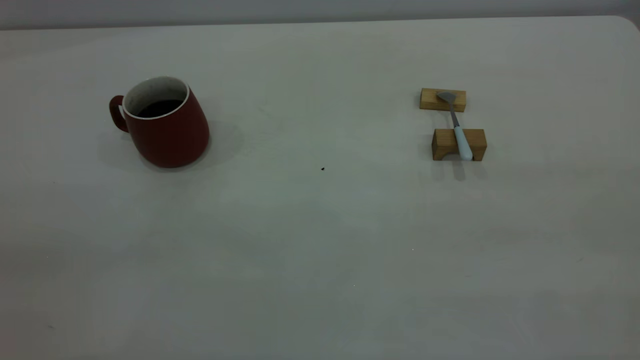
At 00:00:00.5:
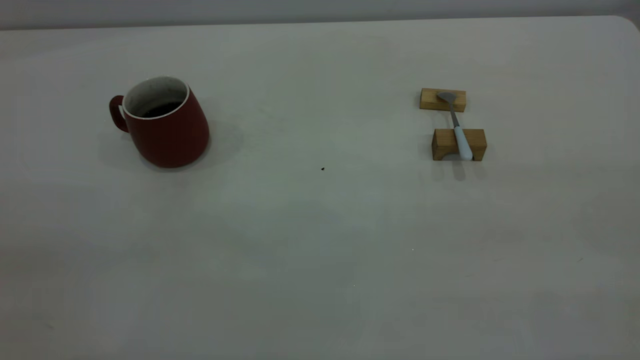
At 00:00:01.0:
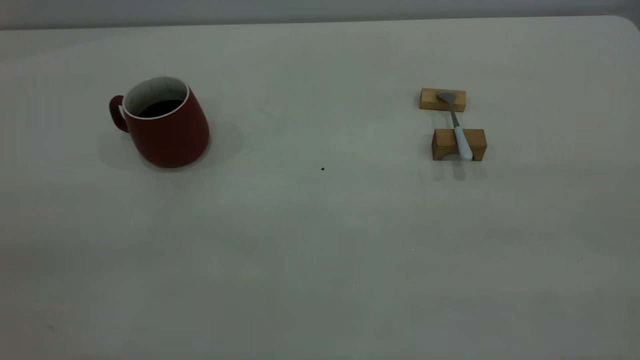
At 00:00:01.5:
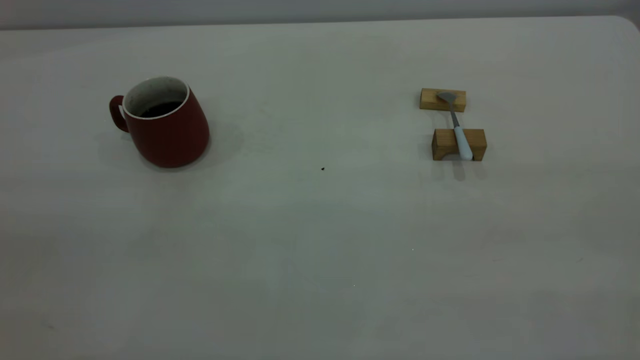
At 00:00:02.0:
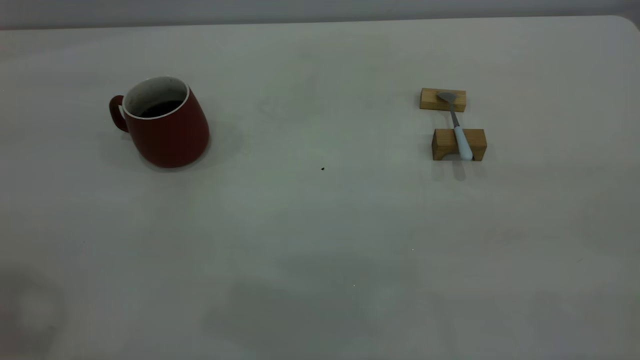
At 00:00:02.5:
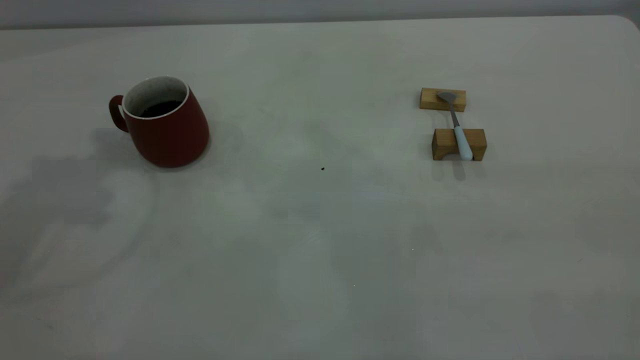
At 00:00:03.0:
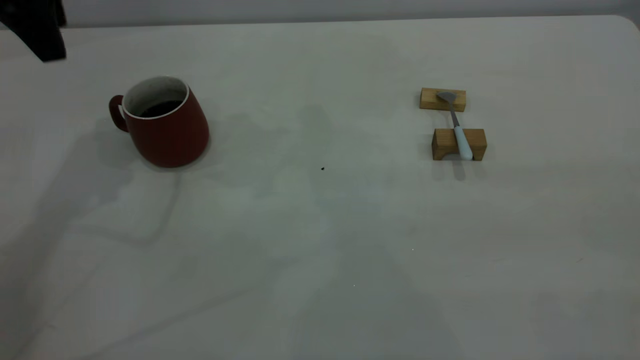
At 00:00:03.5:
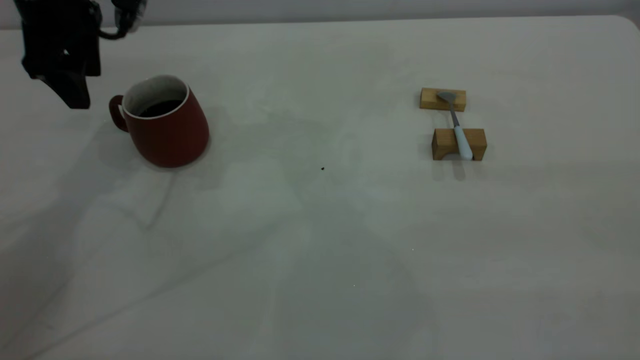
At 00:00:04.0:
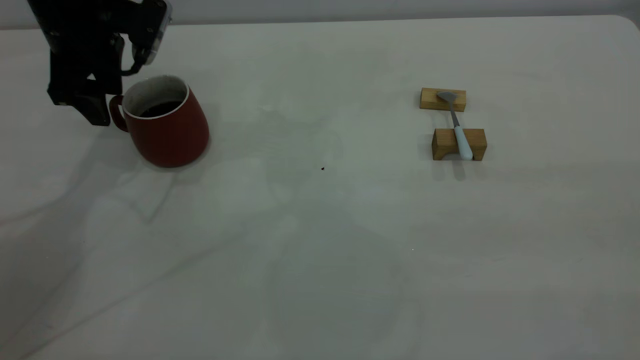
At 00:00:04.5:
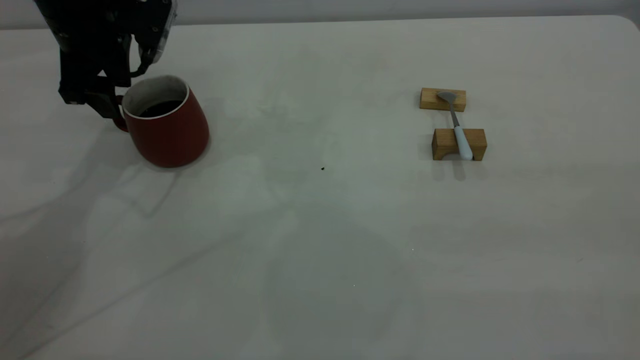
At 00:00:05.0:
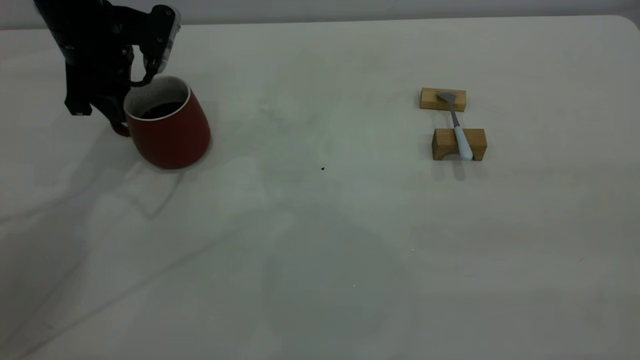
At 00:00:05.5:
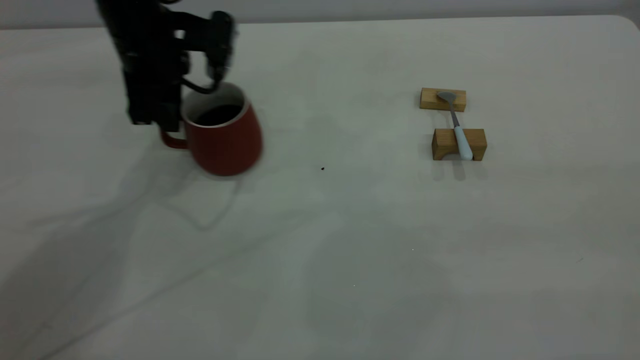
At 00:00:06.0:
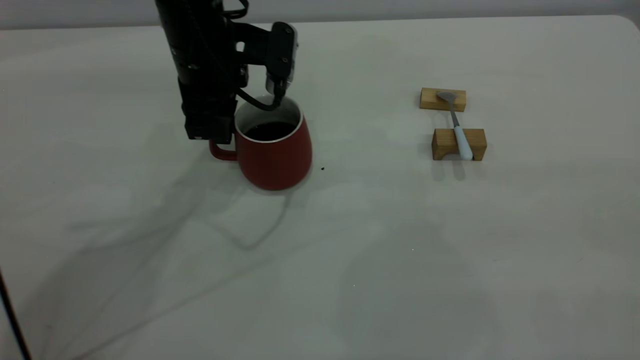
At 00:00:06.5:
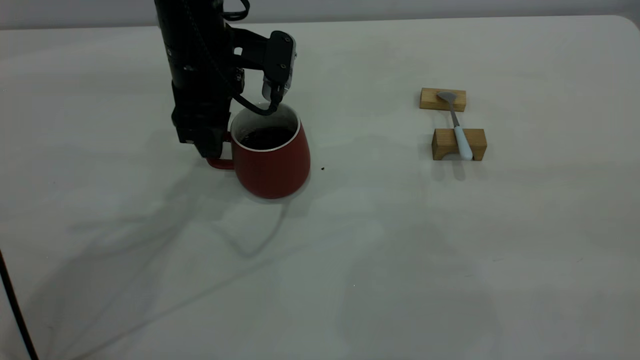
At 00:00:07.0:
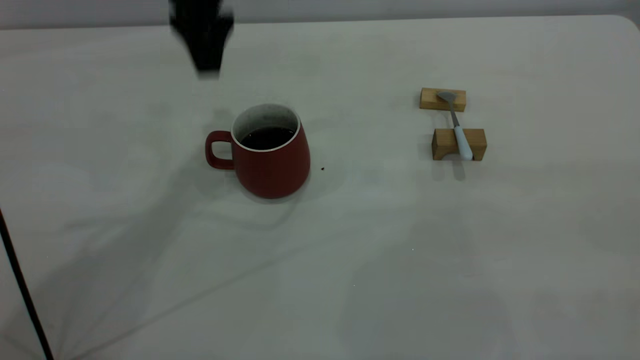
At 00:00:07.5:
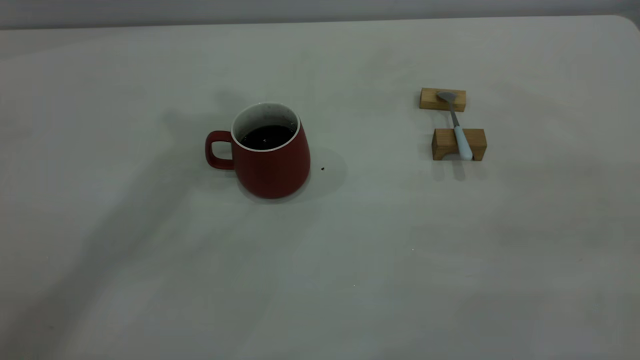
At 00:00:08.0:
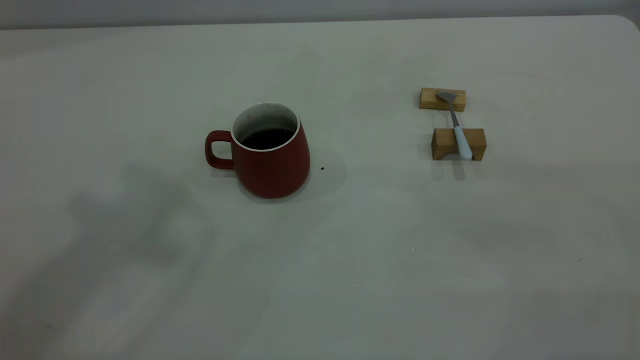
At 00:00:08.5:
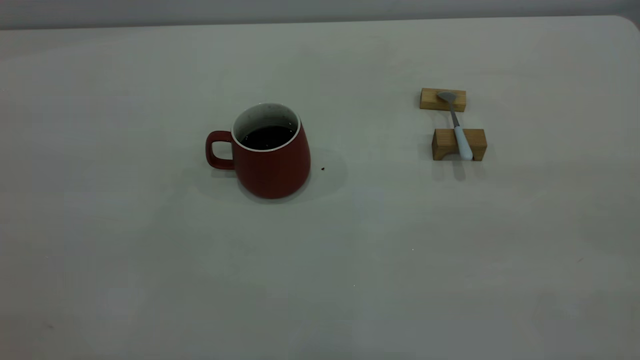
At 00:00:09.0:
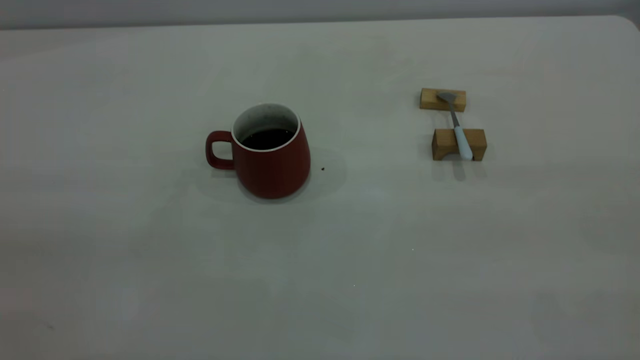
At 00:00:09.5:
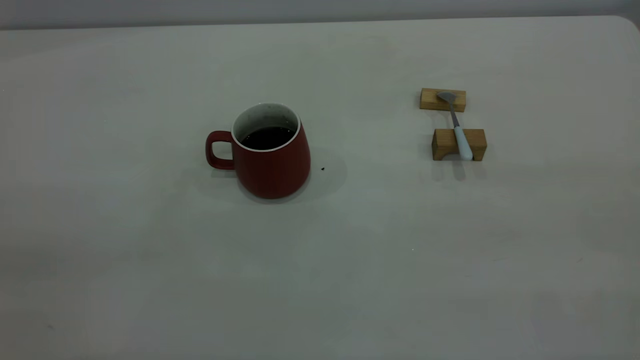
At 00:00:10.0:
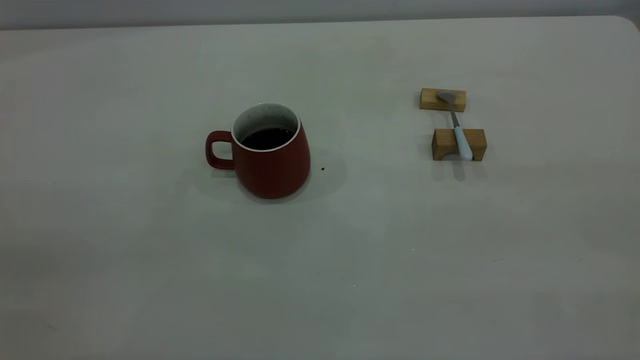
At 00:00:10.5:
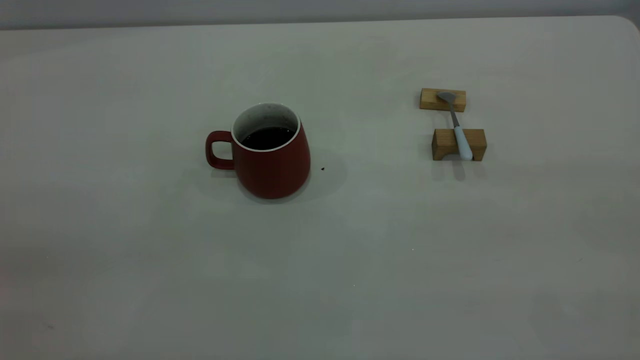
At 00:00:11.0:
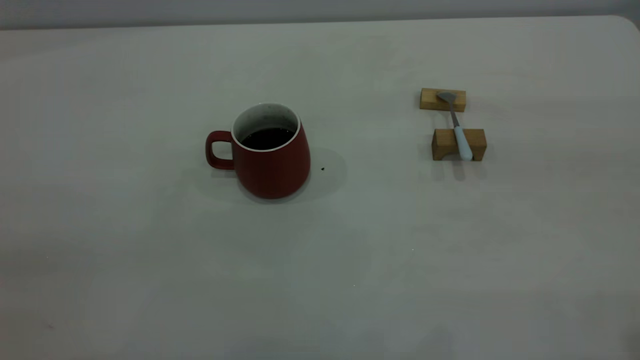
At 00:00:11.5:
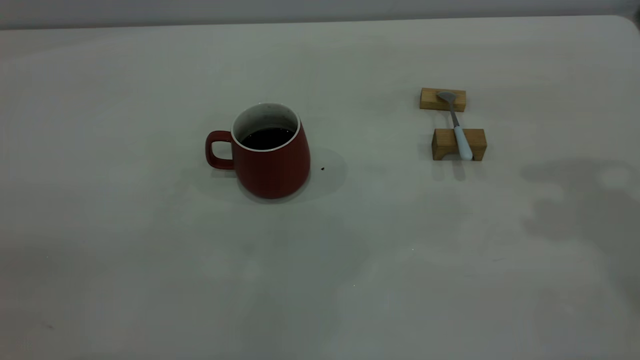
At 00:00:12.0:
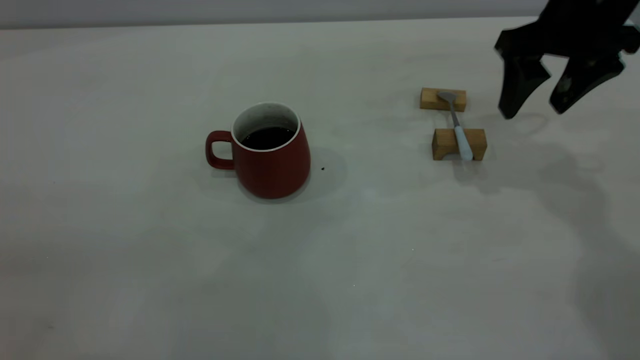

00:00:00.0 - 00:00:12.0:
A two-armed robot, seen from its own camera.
Step, 00:00:00.0 - 00:00:06.5: Move the cup with coffee to the center of view.
00:00:02.0 - 00:00:04.0: The left gripper heads forward and downward, covering roughly 35 cm, and opens.
00:00:04.0 - 00:00:06.0: The left gripper travels to the right by approximately 15 cm, and closes its fingers.
00:00:06.0 - 00:00:08.0: The left gripper heads upward and backward, covering roughly 40 cm, and opens, then closes once more.
00:00:10.0 - 00:00:12.0: The right gripper travels forward and downward by about 40 cm, and opens its fingers.

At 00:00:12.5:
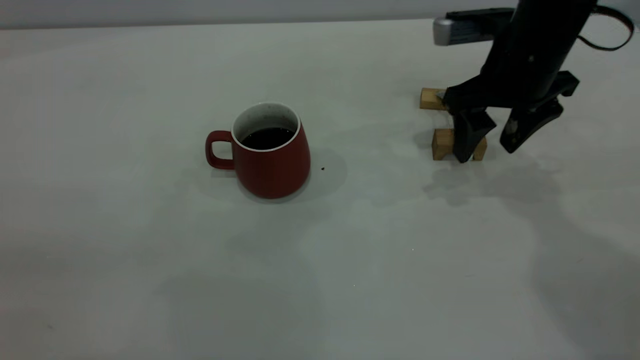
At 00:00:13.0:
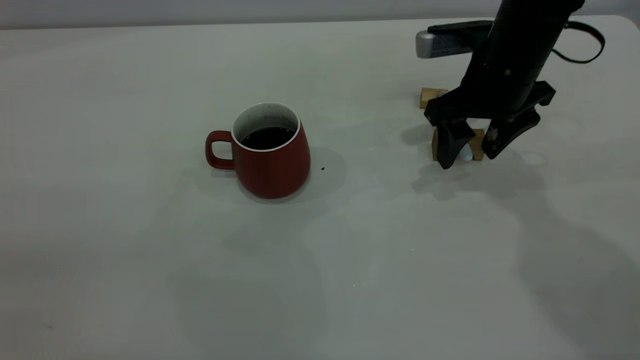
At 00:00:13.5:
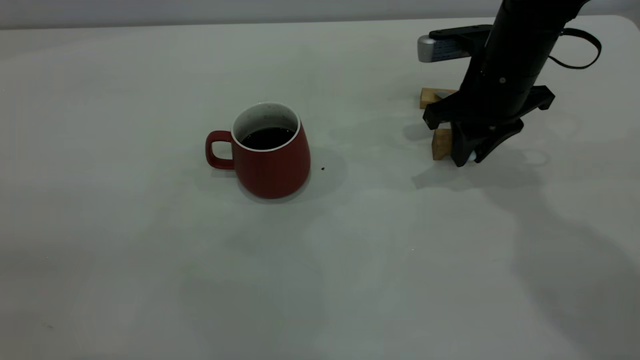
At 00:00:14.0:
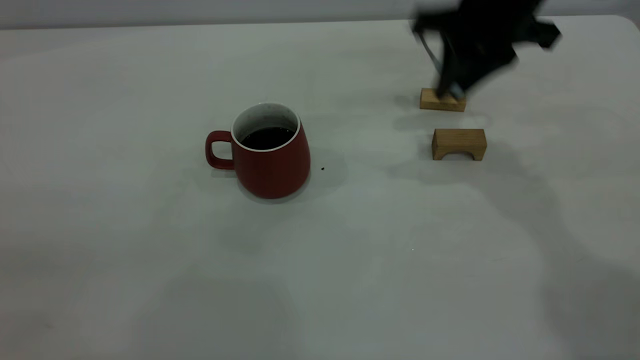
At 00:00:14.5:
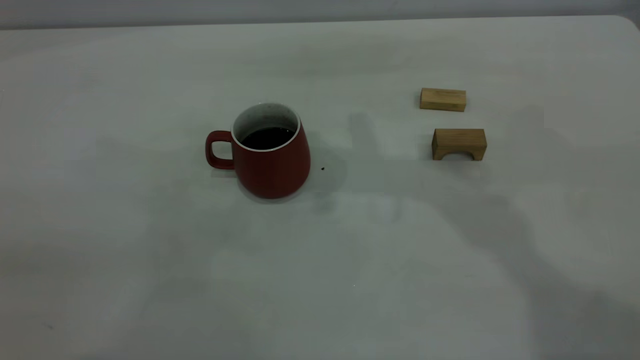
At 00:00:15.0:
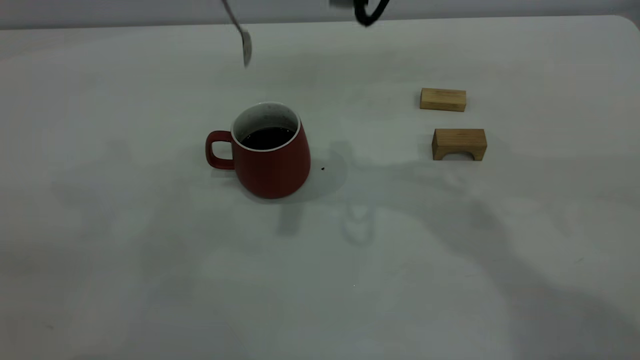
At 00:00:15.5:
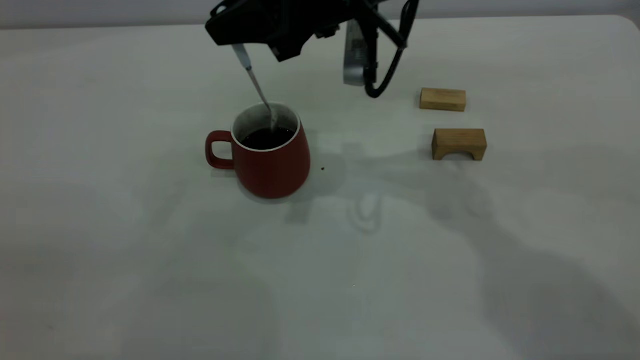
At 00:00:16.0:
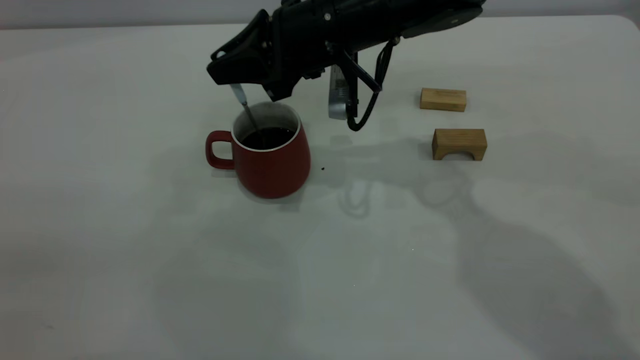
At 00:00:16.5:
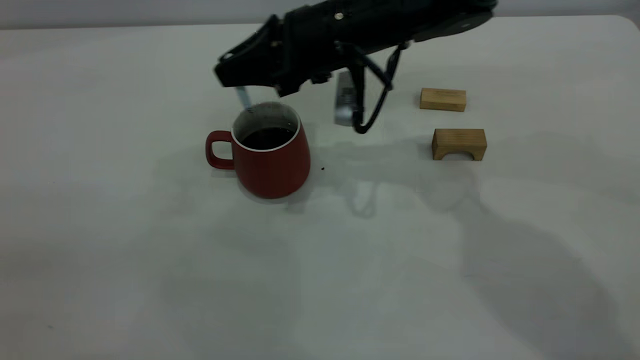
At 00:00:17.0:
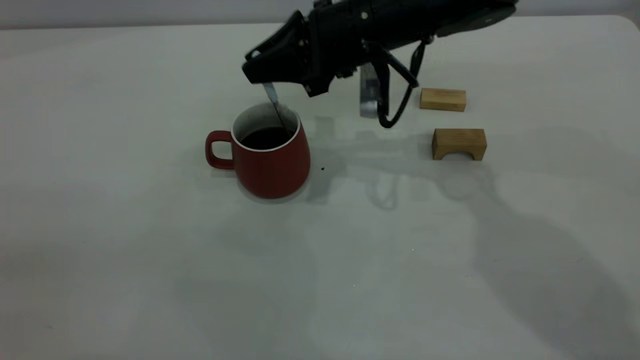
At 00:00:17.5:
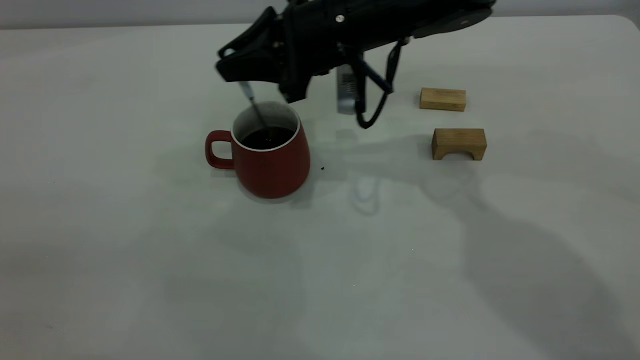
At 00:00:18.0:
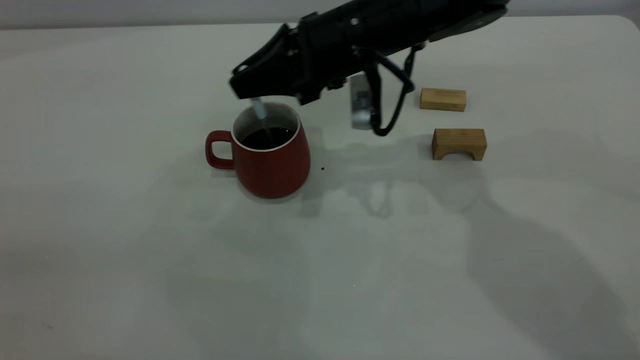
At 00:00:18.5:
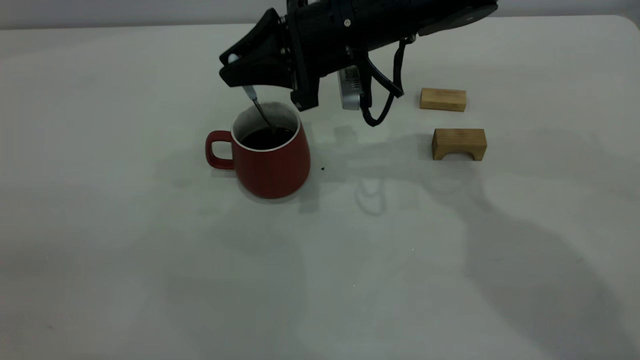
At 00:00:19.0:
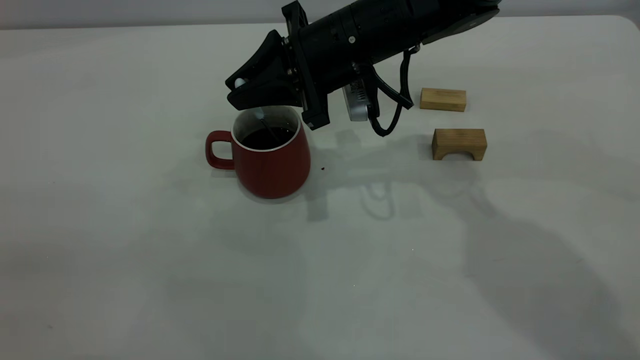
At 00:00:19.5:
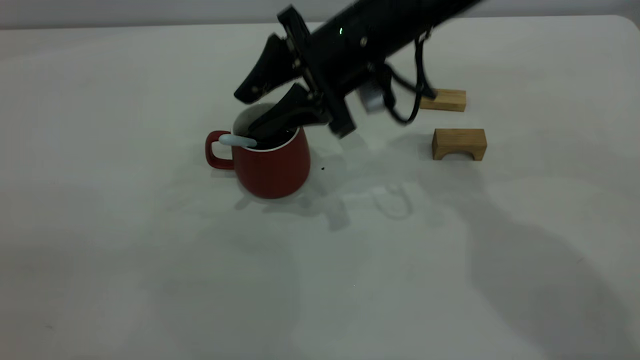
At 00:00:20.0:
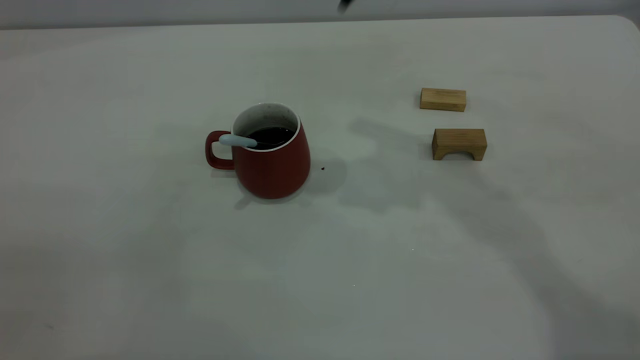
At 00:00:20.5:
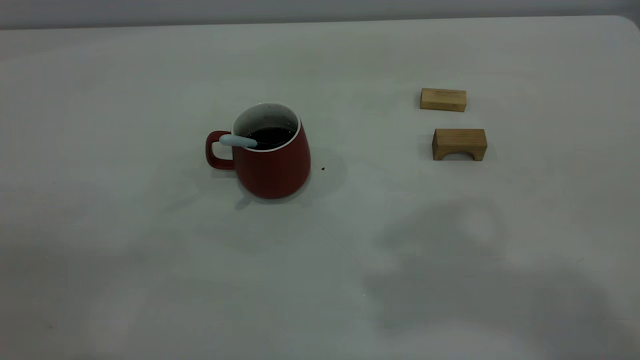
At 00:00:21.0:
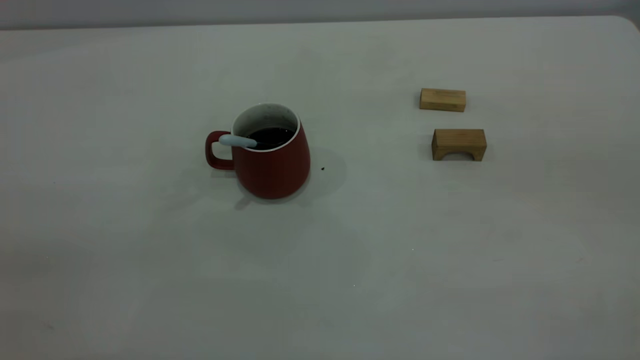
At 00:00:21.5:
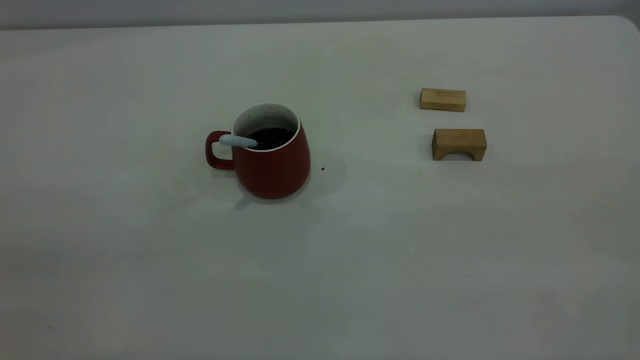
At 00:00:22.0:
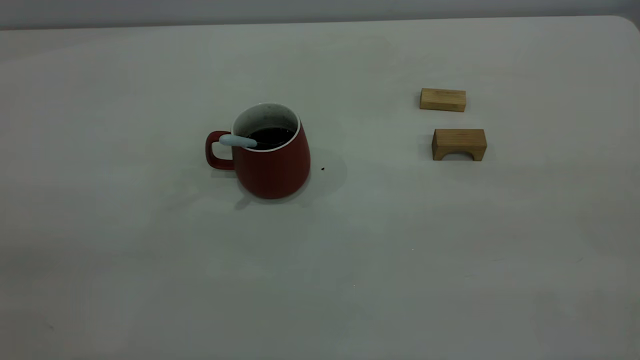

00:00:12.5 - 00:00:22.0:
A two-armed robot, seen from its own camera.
Step, 00:00:14.0 - 00:00:19.5: Stir the coffee in the cup.
00:00:12.5 - 00:00:14.5: The right gripper travels upward and to the left by approximately 20 cm, and closes.
00:00:14.5 - 00:00:16.5: The right gripper is displaced downward by approximately 15 cm.
00:00:16.5 - 00:00:18.0: The grippers stay close to where they were, moving slightly.
00:00:18.0 - 00:00:20.0: The right gripper shifts about 20 cm upward, and opens its fingers.
